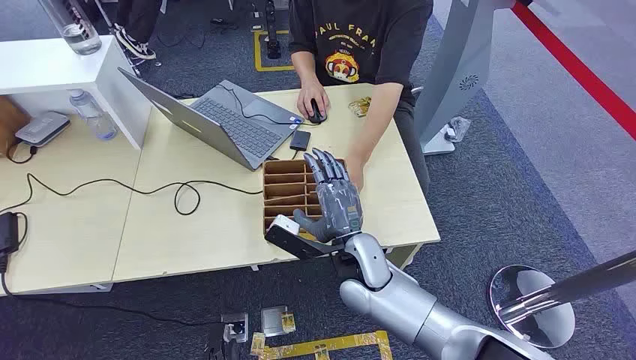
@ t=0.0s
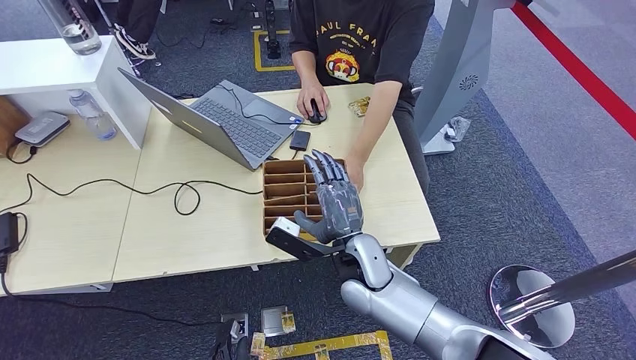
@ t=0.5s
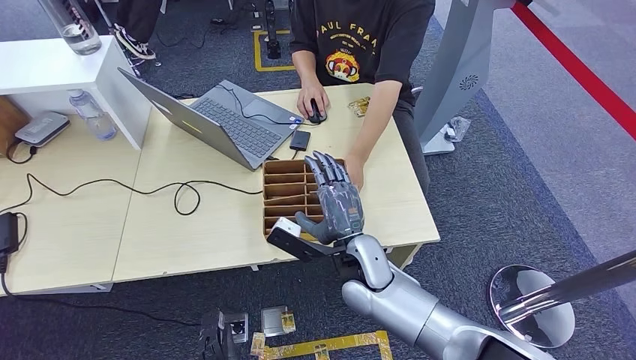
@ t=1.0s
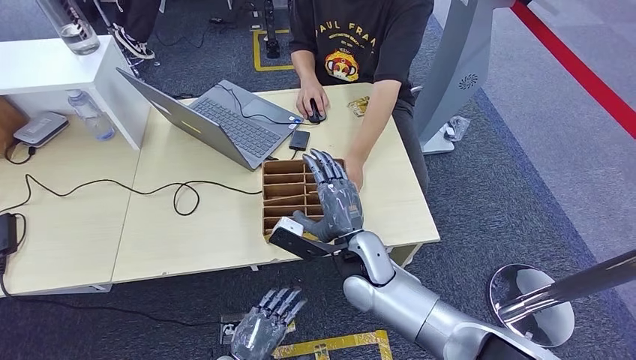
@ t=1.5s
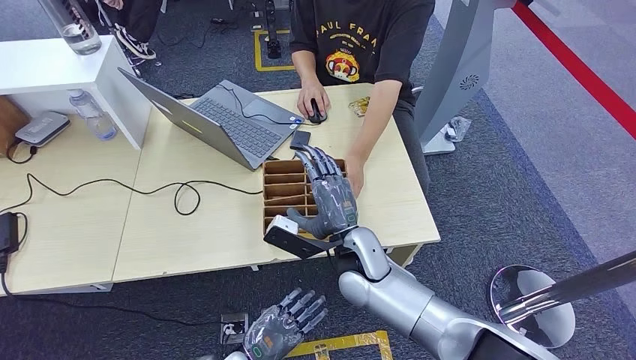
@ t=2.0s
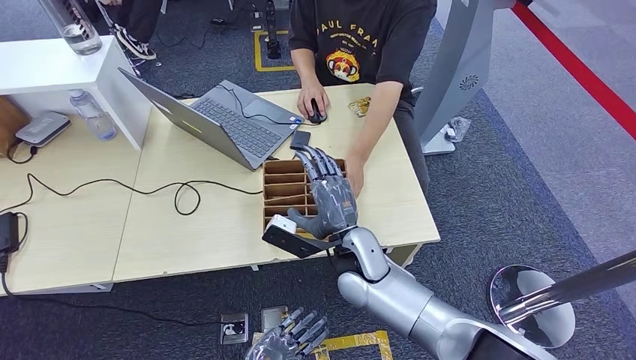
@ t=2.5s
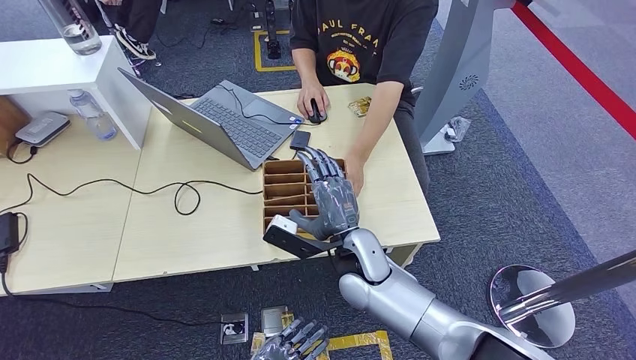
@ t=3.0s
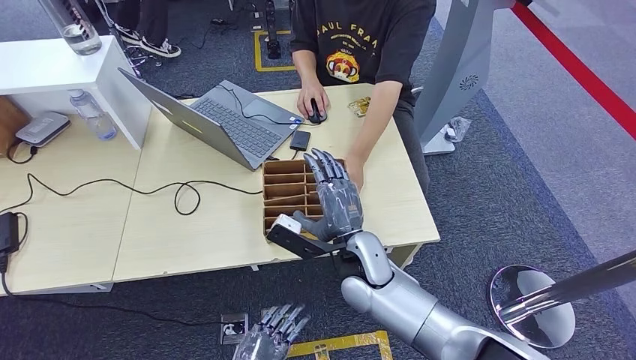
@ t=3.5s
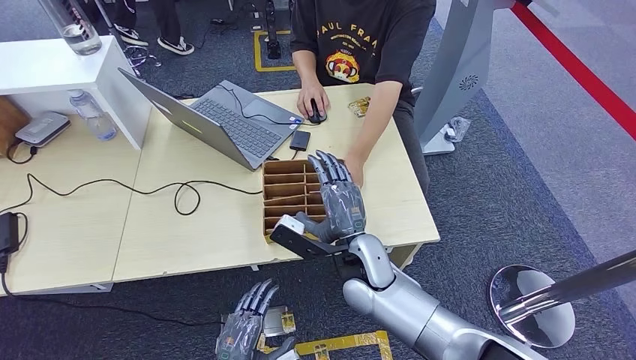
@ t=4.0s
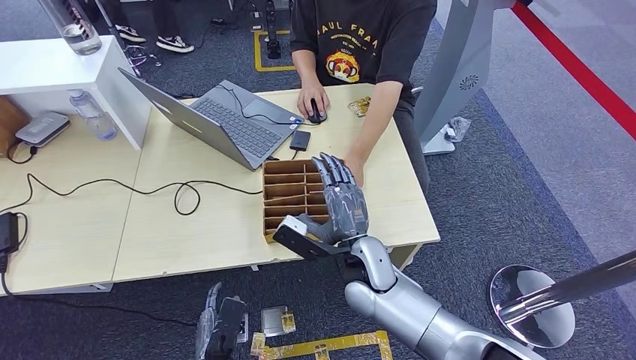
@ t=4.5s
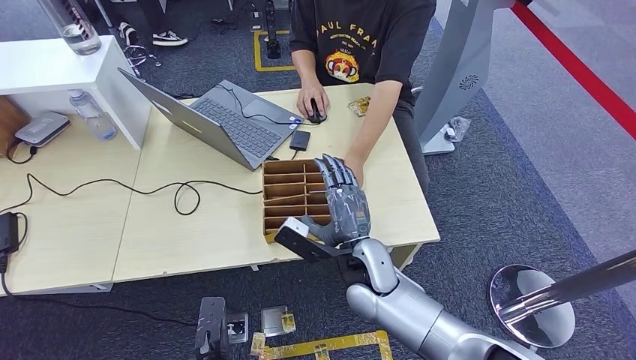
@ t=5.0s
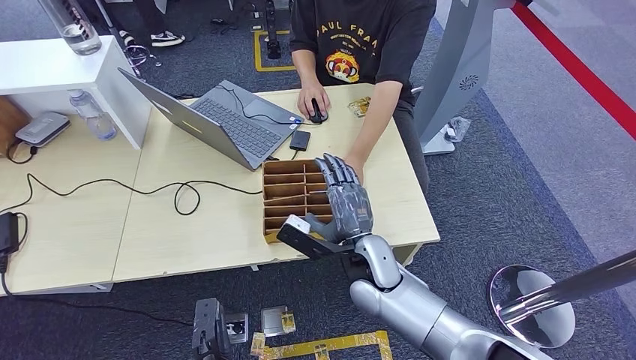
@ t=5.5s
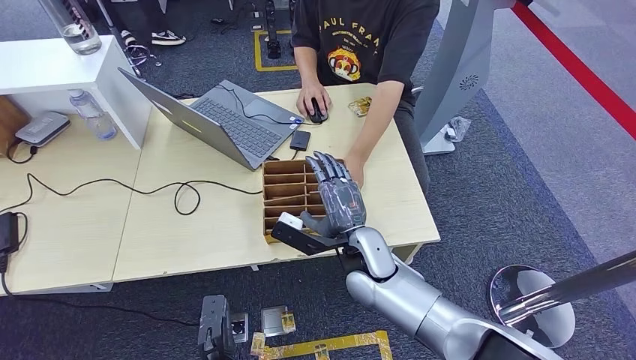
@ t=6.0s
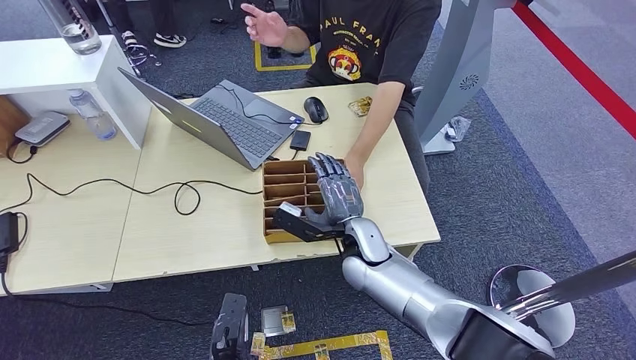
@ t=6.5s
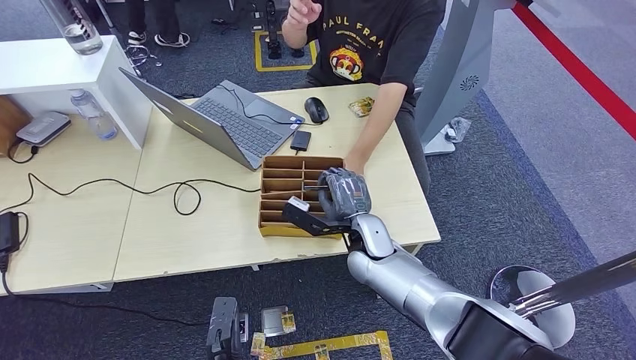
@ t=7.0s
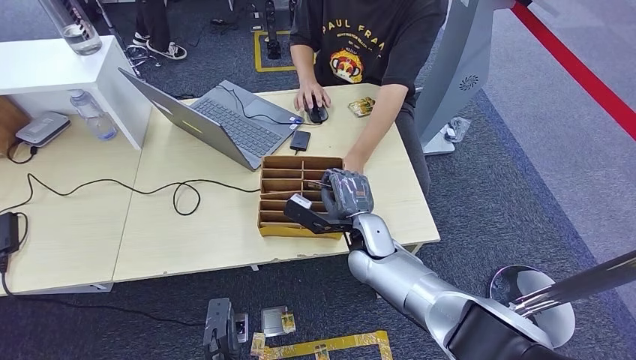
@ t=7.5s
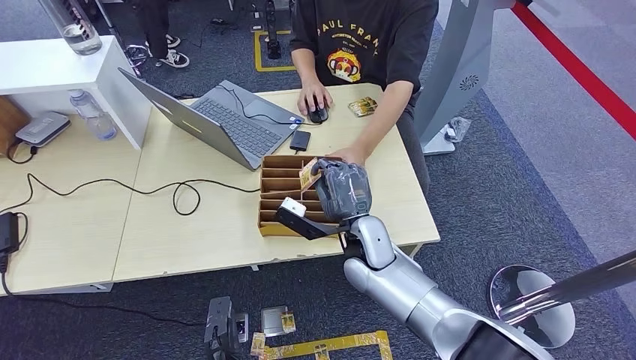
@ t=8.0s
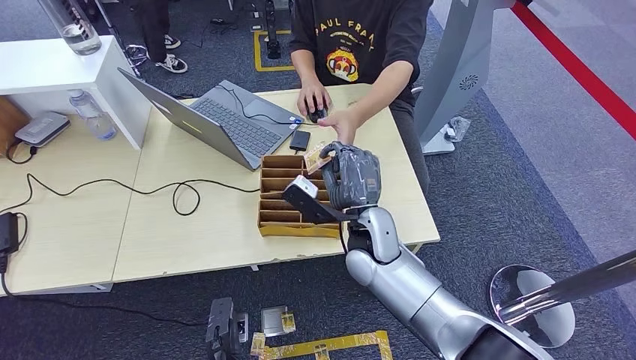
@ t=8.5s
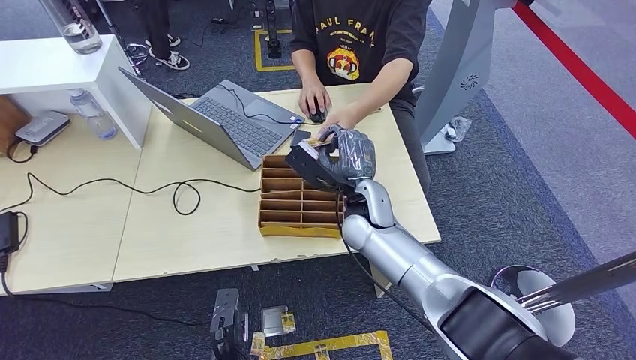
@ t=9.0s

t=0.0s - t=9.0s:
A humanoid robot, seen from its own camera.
Step, t=0.0s - t=7.5s: Pick up the room card from the card holder.
Step, t=8.0s - t=9.0s: Hand the room card to the target.
t=2.0s - t=4.5s: The left hand shifts some 5 cm backward.
t=4.5s - t=7.0s: The right hand moves forward, about 5 cm.
t=7.0s - t=9.0s: The right hand shifts about 5 cm upward.

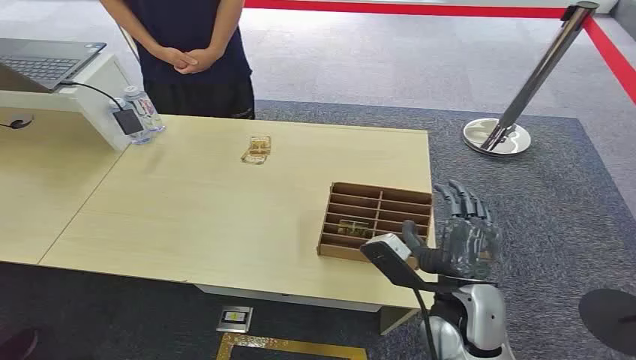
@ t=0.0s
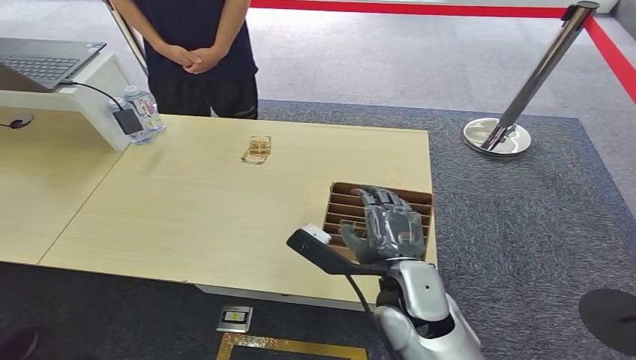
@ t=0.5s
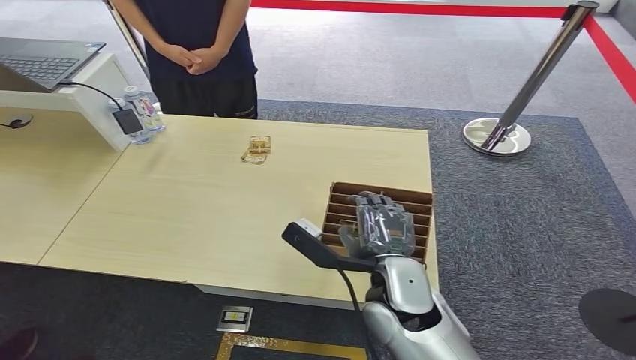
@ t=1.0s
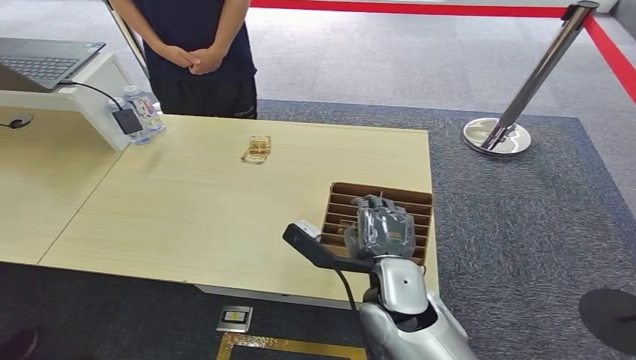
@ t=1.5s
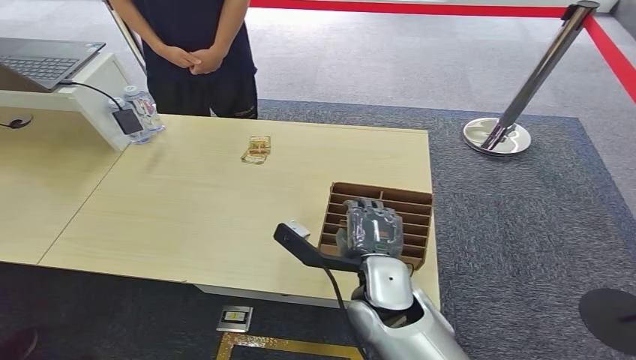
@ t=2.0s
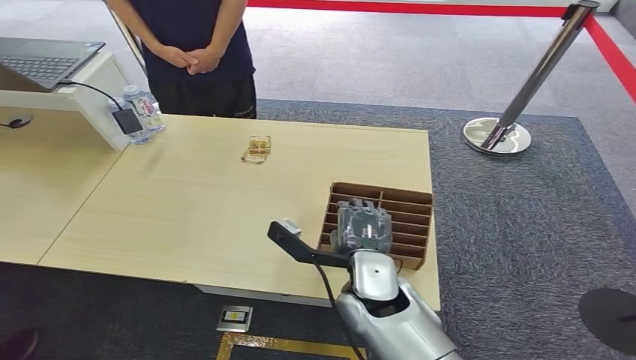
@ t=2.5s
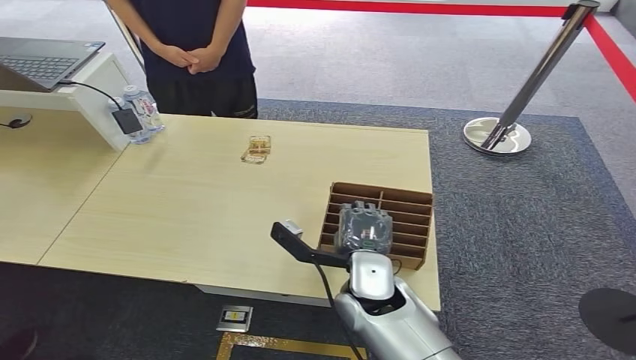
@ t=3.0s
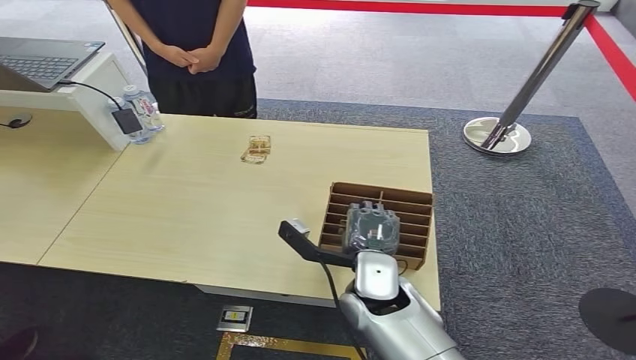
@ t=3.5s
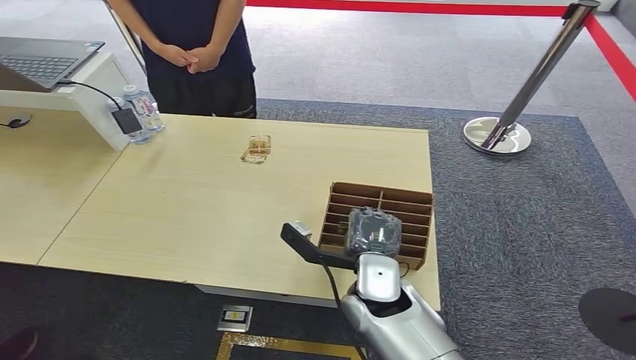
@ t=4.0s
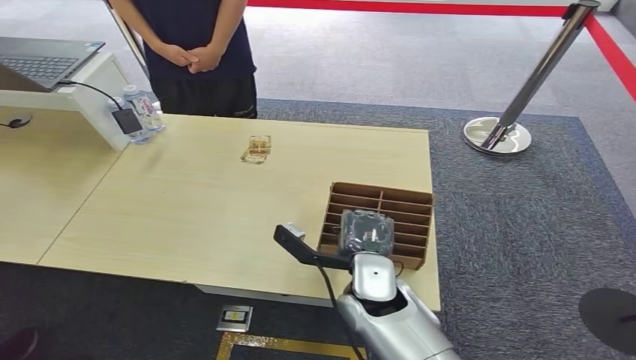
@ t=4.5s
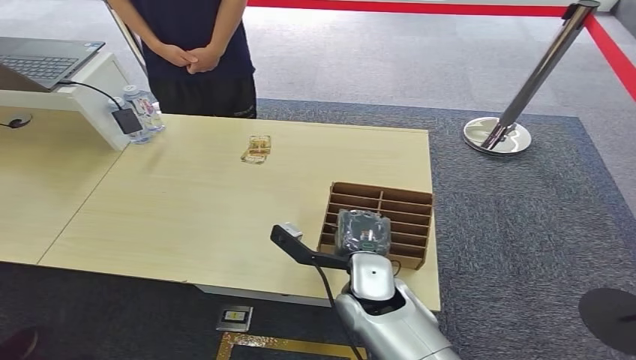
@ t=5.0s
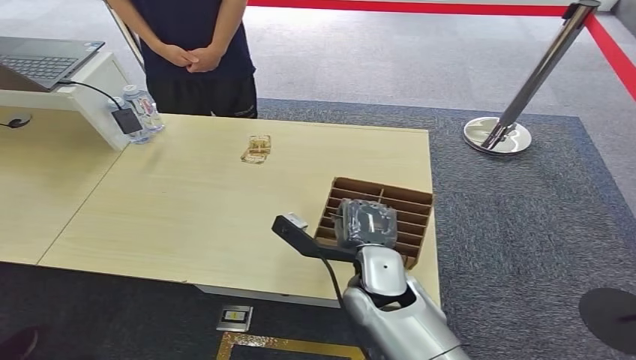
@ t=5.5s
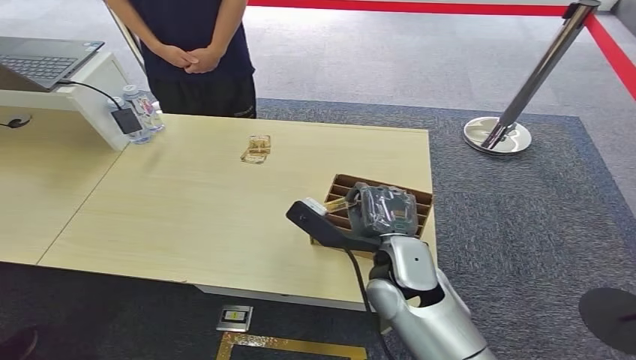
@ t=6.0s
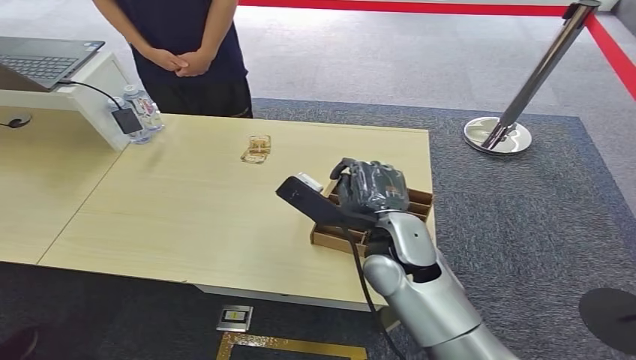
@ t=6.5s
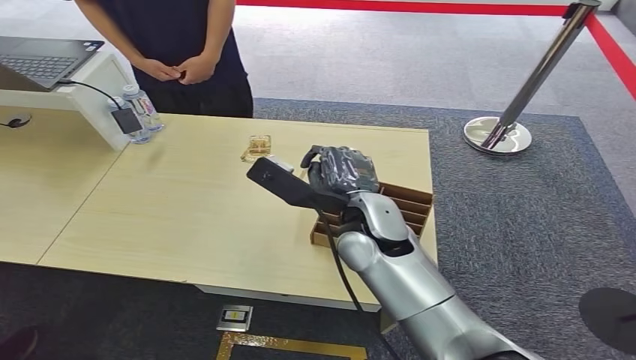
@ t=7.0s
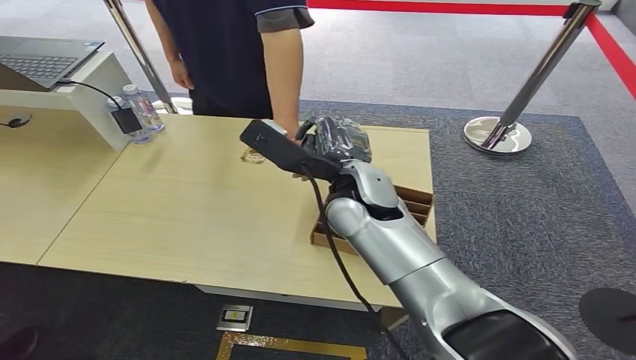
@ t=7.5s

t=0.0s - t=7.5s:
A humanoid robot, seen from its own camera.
Step, t=0.0s - t=6.0s: Pick up the room card from the card holder.
Step, t=6.5s - t=7.5s: Hand the room card to the target.
t=2.0s - t=5.5s: The hands make only small movements.

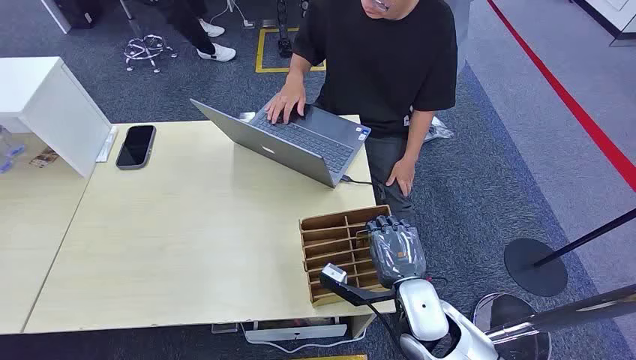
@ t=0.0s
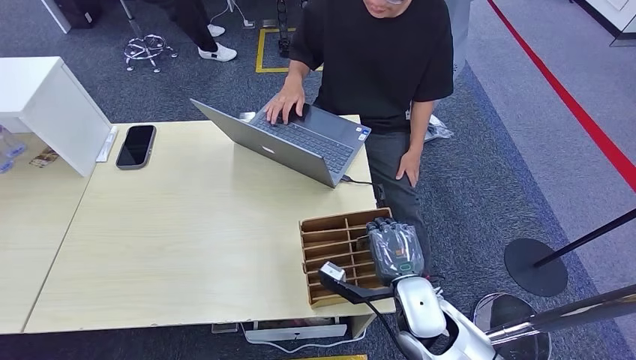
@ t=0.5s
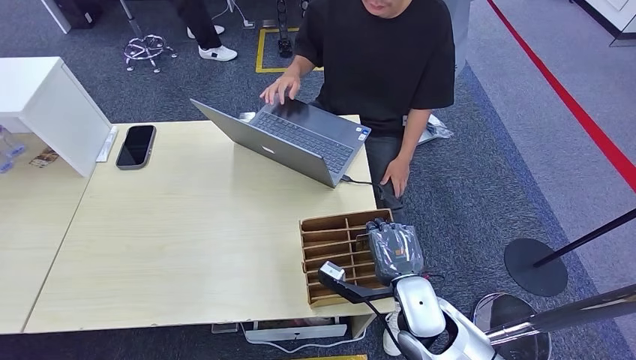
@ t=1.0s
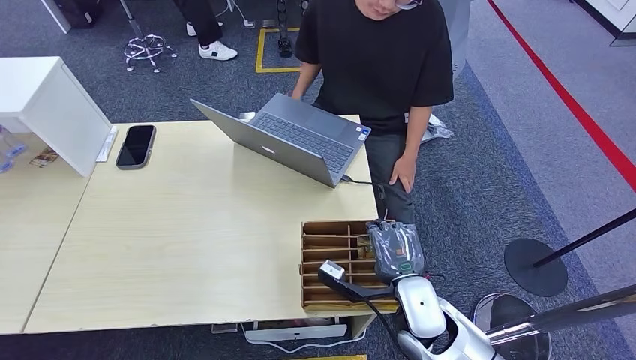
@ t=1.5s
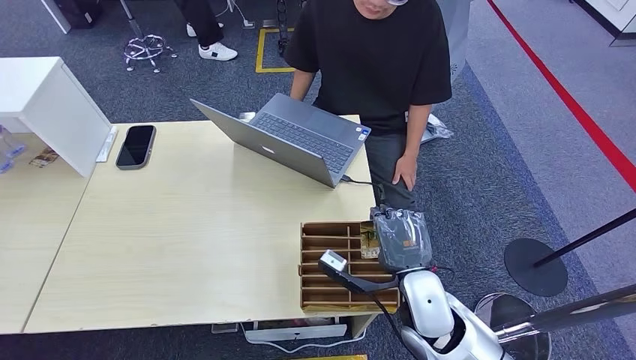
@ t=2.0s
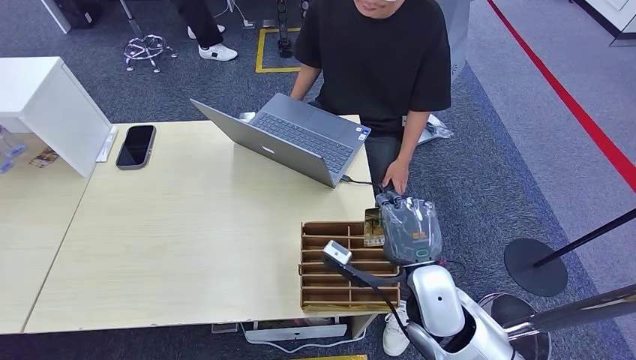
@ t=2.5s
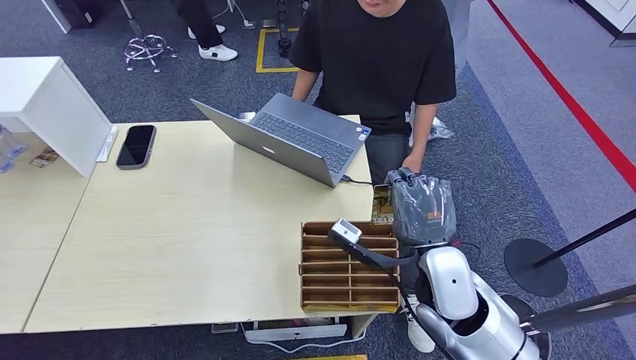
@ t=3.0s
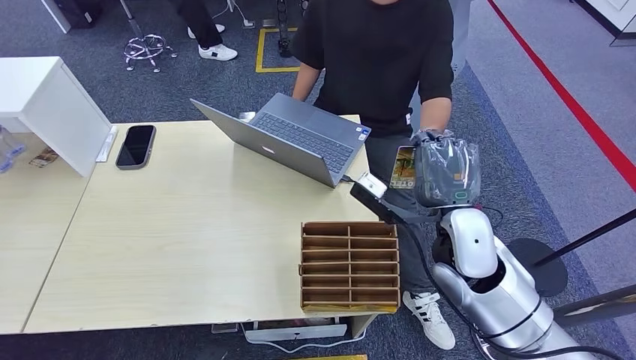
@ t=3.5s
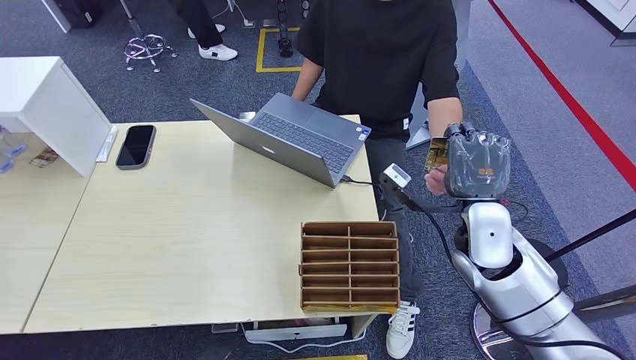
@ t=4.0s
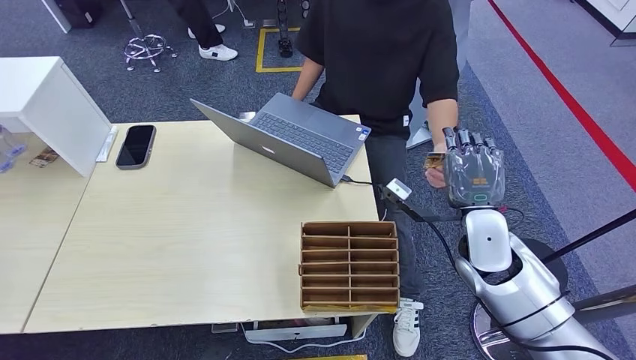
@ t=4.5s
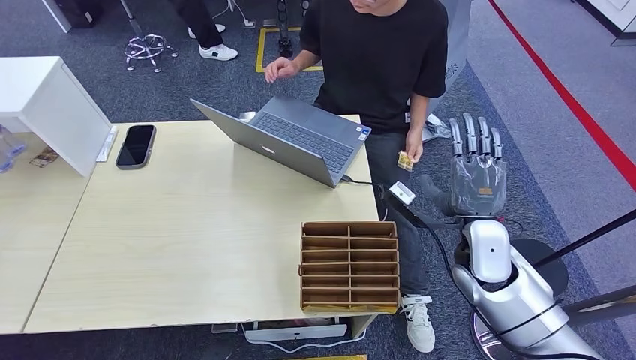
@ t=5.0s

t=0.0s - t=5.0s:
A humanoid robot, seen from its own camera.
Step, t=0.0s - t=2.5s: Pick up the room card from the card holder.
Step, t=3.0s - t=5.0s: Hand the room card to the target.
t=2.5s - t=5.0s: The right hand is displaced to the right and forward by some 10 cm.
